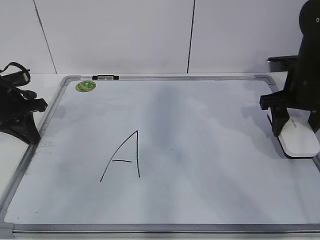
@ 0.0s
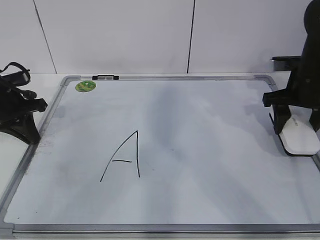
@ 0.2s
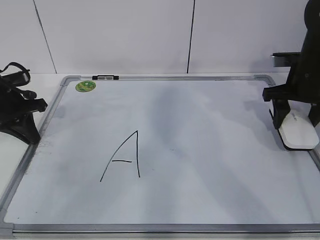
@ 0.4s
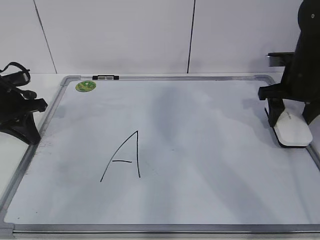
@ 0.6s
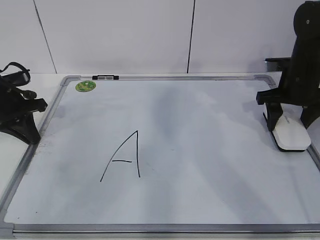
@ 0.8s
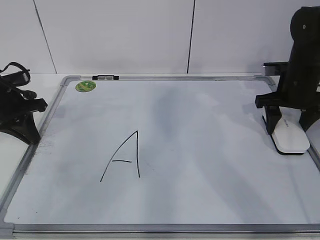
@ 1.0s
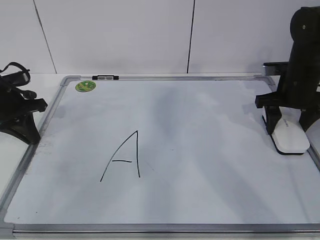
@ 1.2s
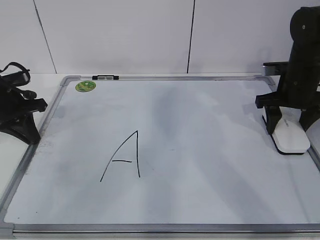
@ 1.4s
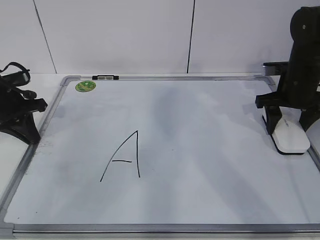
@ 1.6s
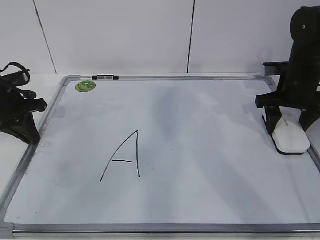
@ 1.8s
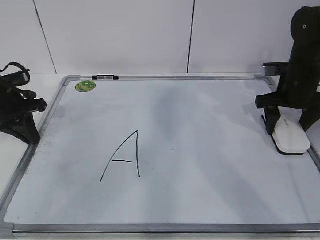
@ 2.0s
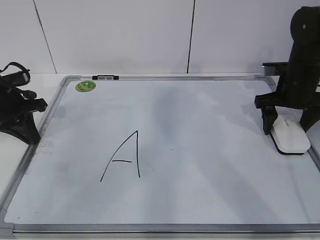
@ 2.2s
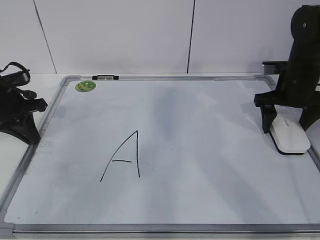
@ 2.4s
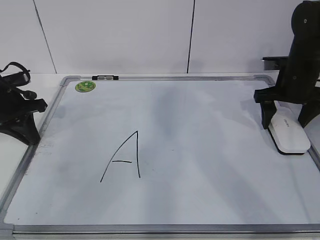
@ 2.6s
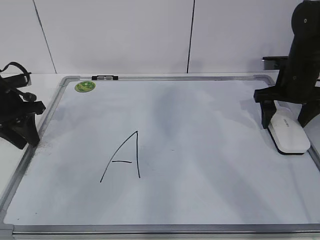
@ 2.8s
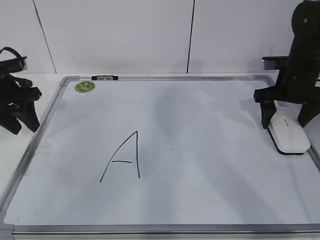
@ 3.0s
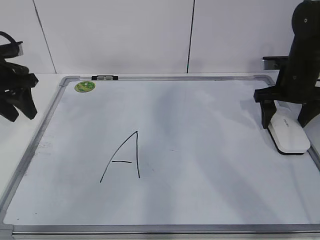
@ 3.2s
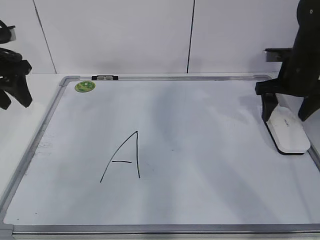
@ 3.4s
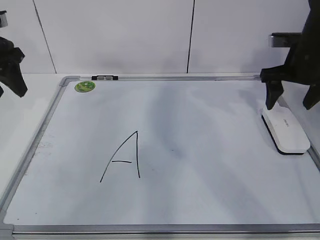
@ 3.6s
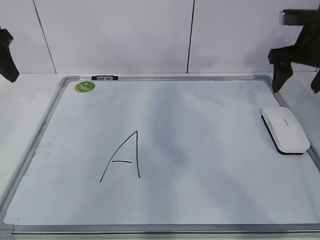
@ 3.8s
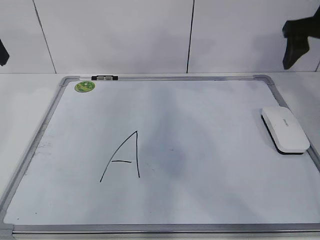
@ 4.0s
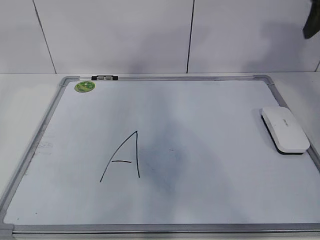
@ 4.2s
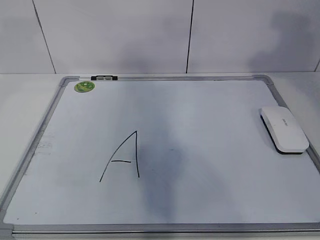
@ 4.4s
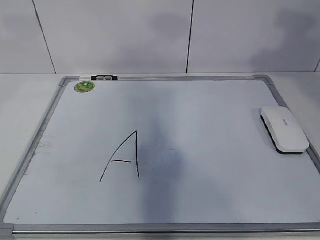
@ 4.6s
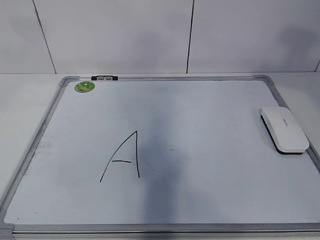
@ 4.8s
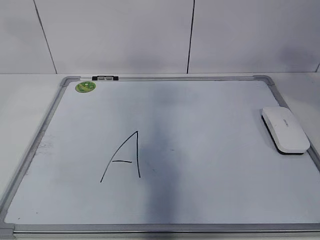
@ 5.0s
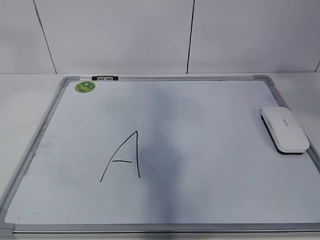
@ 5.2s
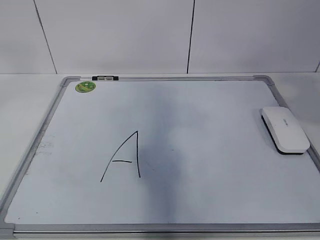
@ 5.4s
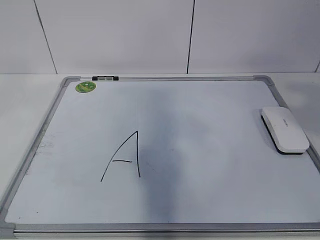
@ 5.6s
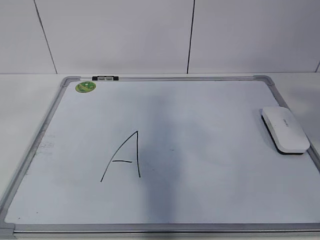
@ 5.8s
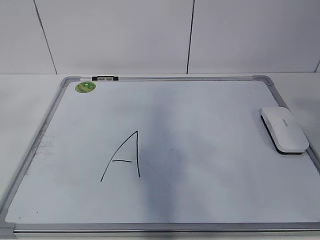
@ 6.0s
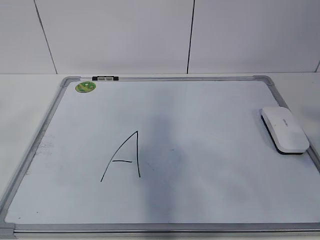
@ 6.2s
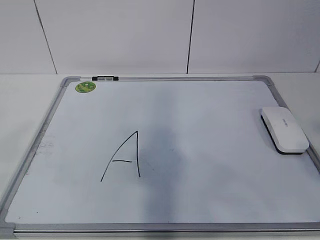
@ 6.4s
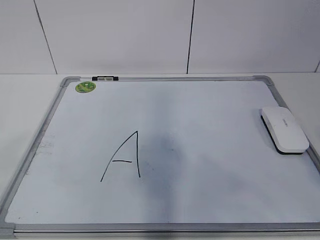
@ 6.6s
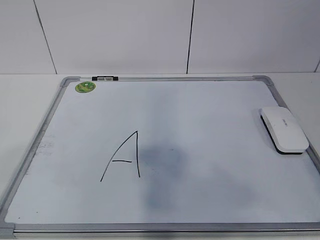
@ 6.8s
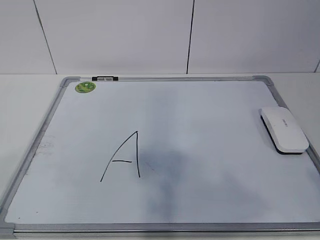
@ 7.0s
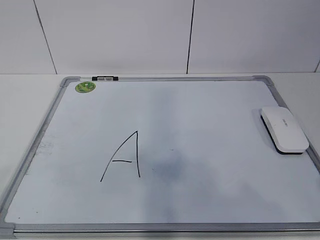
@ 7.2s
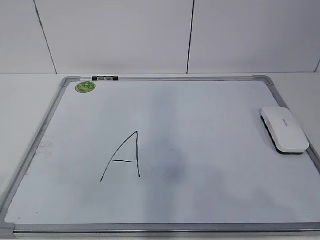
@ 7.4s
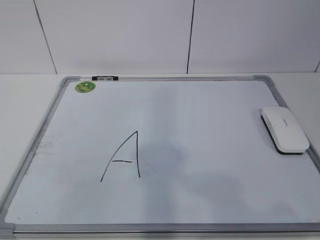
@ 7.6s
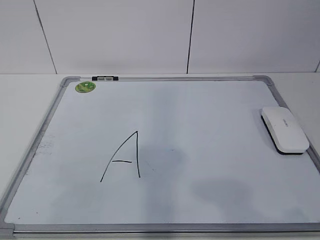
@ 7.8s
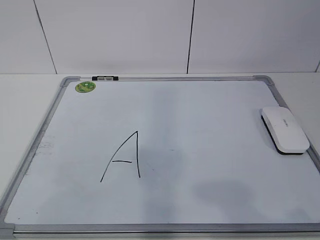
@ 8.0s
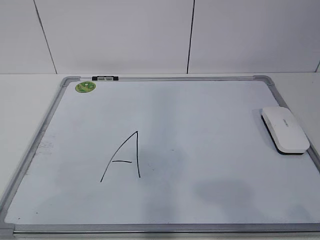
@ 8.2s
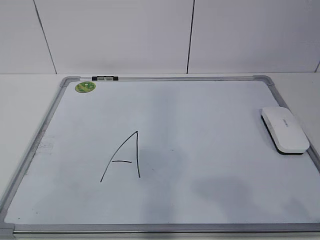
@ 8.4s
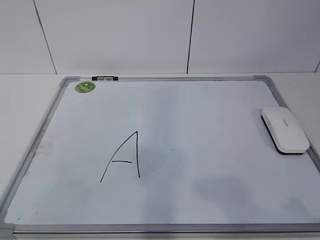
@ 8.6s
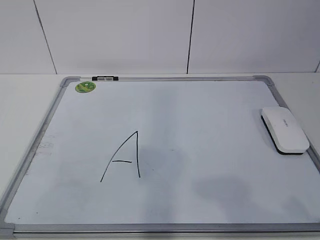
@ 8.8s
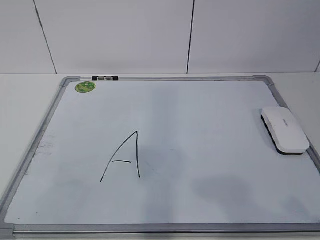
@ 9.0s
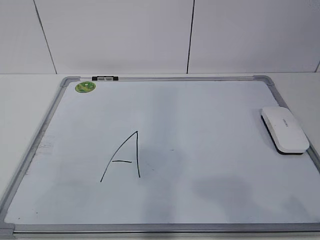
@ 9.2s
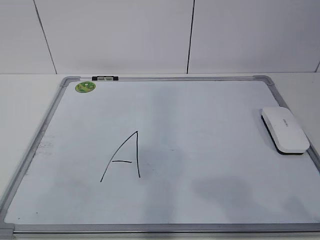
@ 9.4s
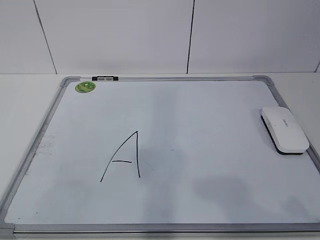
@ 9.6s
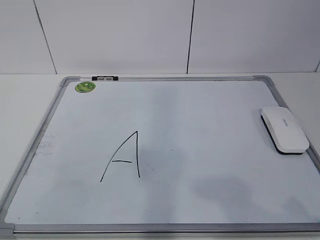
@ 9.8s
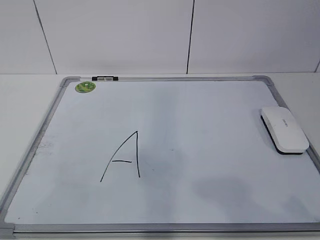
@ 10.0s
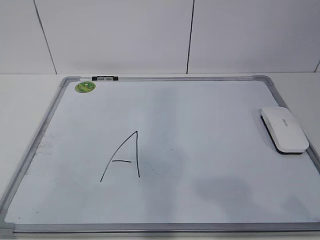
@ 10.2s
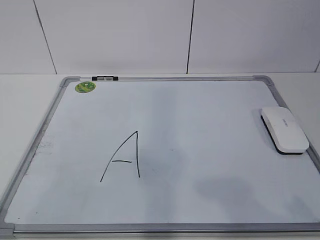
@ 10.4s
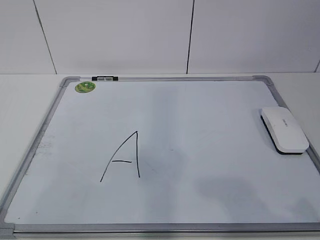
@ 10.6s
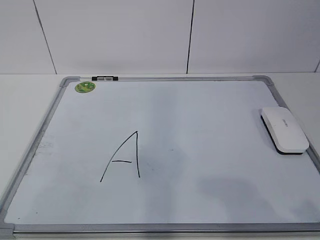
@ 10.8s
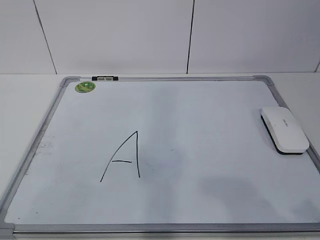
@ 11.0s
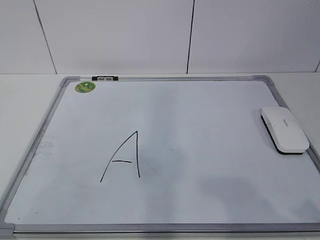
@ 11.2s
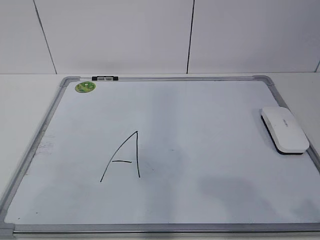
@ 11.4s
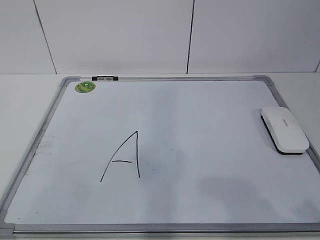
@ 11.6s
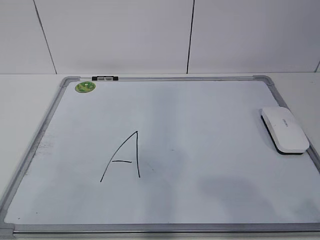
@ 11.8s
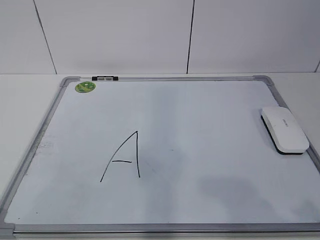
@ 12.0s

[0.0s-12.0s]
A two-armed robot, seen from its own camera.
Task of the whole recording: pick up the eraser on the blackboard and erase the letter "a".
0.0s to 1.6s: The grippers stay close to where they were, moving slightly.
1.6s to 3.0s: The left gripper opens. The right gripper opens up.
3.0s to 4.4s: The grippers both shift upward and backward by roughly 25 cm. The left gripper opens its fingers.
4.4s to 6.0s: Both grippers move backward, roughly 30 cm. The right gripper closes its fingers.
6.0s to 7.6s: The left gripper heads downward, covering roughly 20 cm; the right gripper moves downward and backward, some 15 cm.

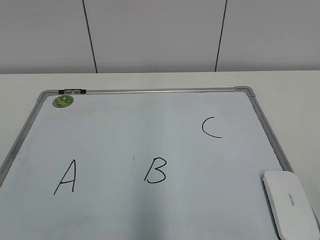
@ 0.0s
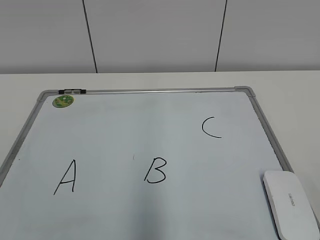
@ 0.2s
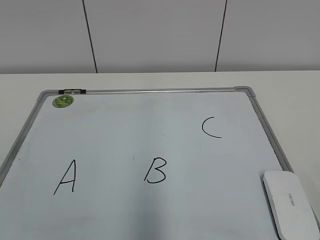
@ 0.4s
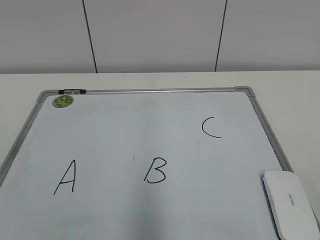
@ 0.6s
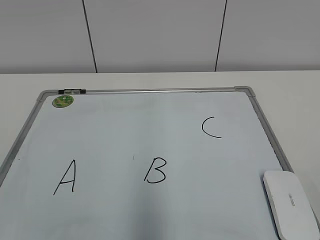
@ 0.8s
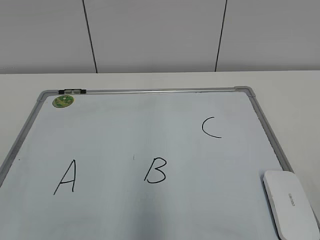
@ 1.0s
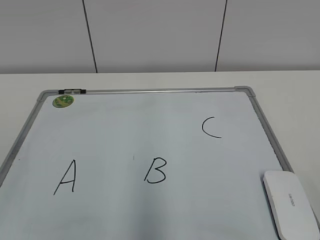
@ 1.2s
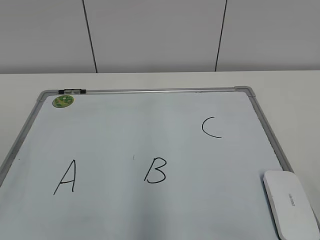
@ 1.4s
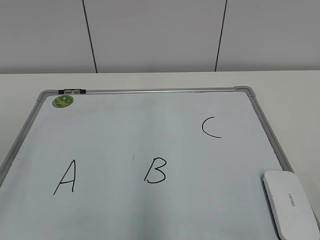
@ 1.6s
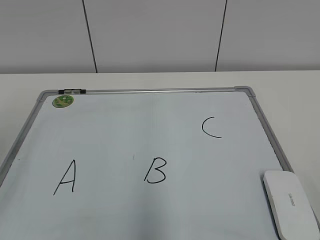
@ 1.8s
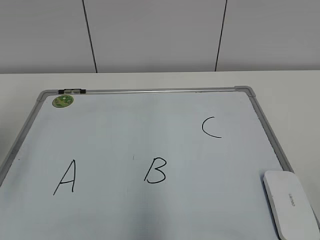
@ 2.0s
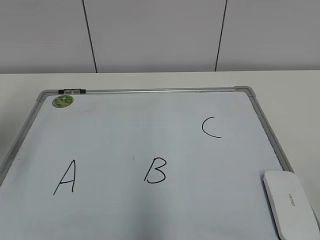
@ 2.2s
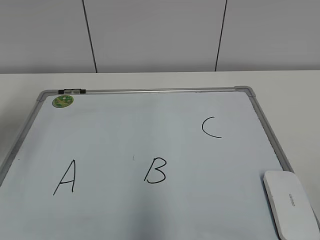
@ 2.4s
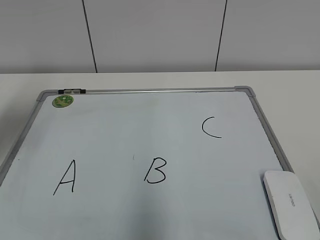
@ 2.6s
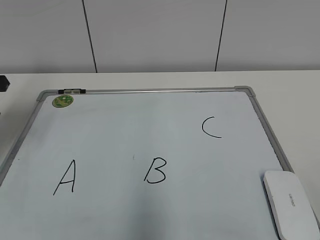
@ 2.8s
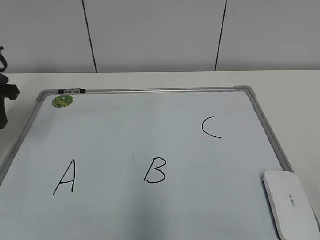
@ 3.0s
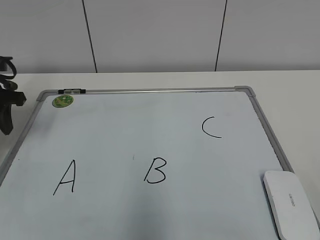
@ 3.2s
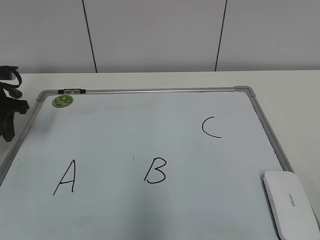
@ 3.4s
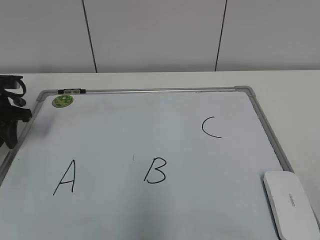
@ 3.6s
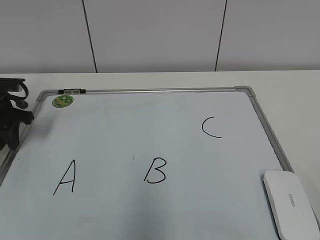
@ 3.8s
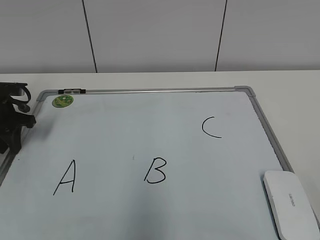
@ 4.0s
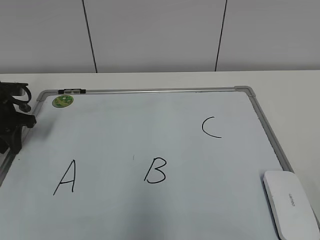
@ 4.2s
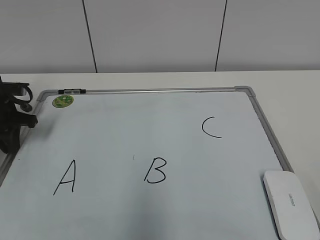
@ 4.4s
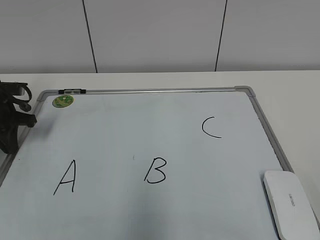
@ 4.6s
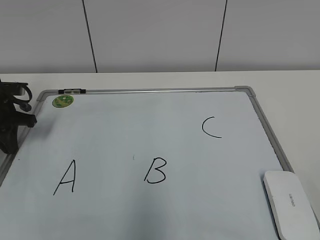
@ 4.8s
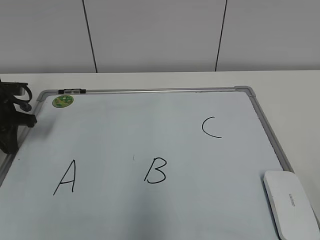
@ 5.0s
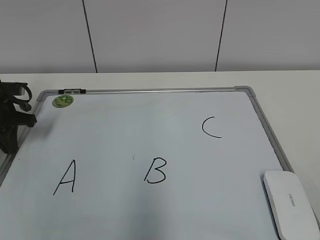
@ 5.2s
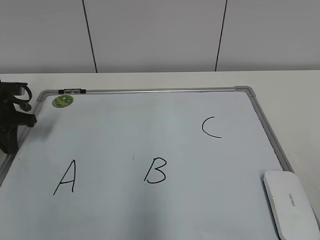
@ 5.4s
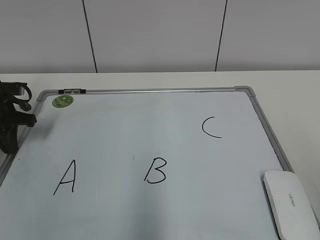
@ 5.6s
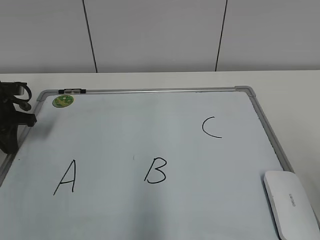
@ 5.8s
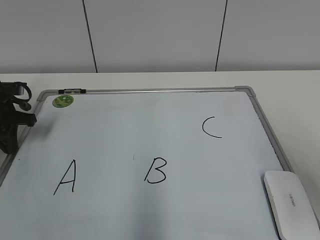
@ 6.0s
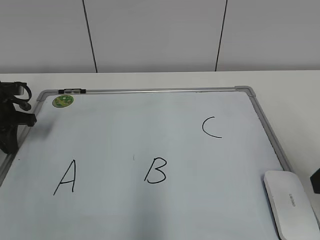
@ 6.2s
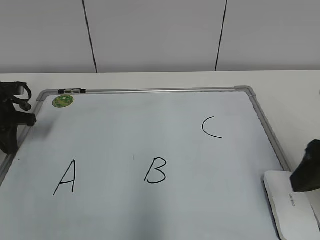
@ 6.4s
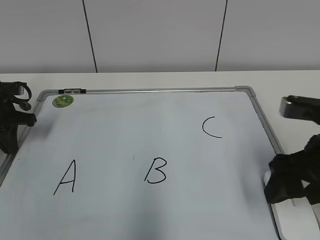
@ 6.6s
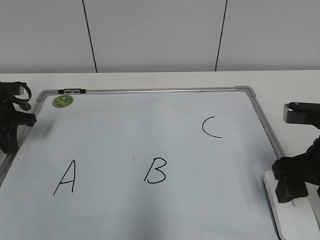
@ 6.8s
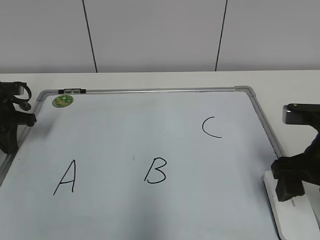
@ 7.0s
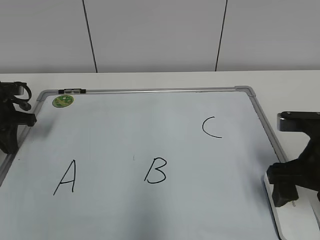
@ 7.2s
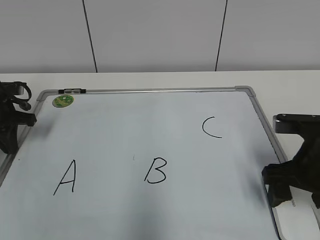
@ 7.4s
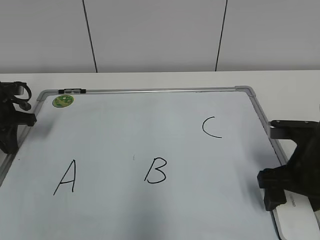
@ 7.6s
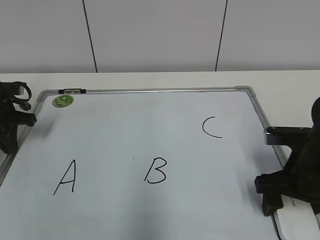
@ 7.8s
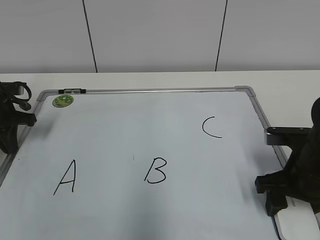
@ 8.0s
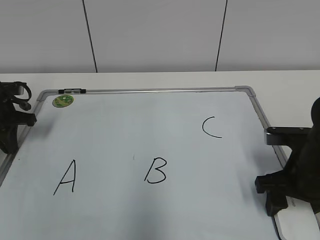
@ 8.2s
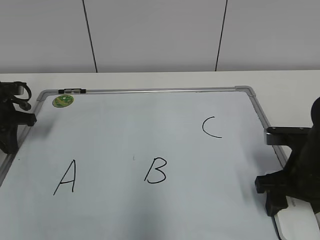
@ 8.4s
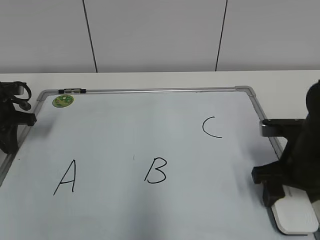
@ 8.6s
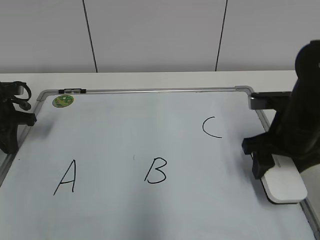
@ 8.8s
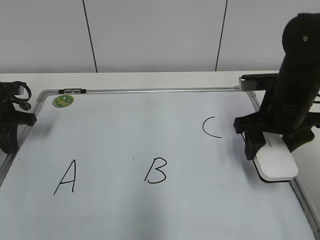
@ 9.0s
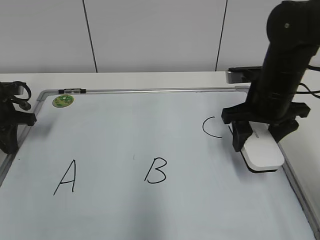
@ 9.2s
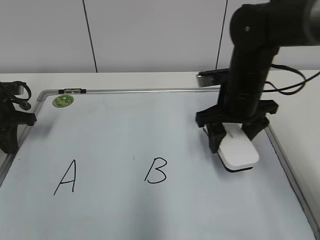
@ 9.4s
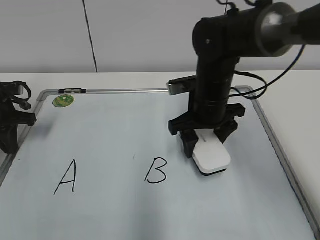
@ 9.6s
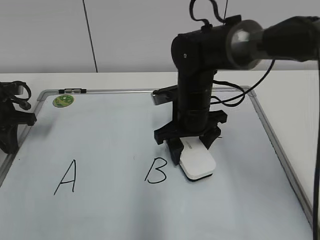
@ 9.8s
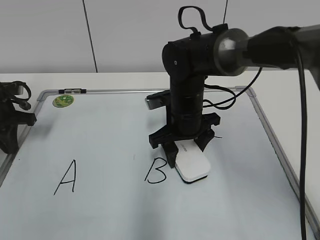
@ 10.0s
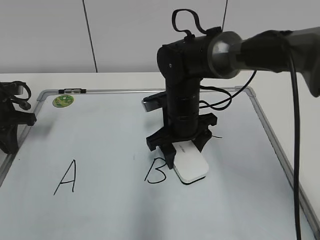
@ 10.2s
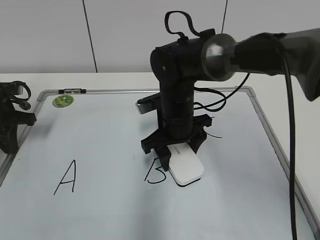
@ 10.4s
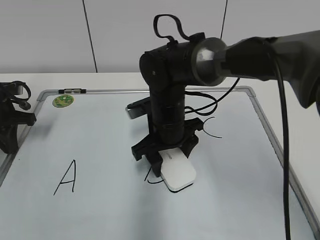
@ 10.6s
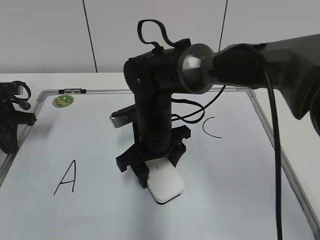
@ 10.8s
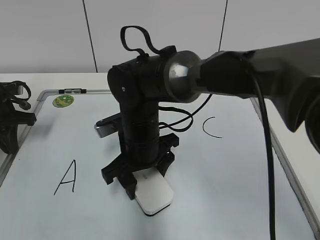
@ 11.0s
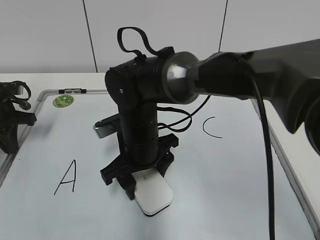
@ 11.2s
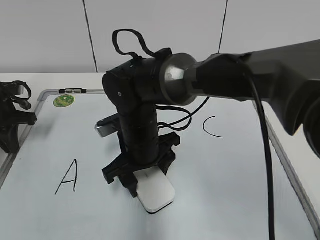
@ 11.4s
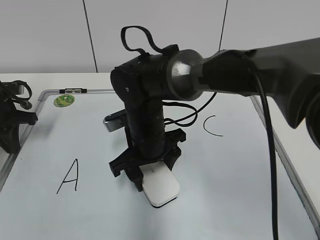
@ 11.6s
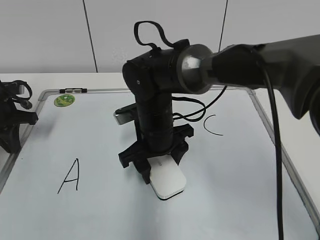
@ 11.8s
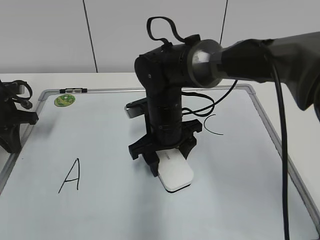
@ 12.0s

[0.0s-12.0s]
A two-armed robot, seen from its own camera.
Task of the whole recording: pick up the eraser on the blackboard and erase the letter "B".
Step, 0.0s to 5.0s: Hold the drawing board steady with your left hand.
Step, 5.2s to 8.2s: Grab the eraser with your right hand.
1.6s to 3.0s: The left gripper goes roughly 25 cm forward.
3.0s to 4.4s: The left gripper moves downward, about 10 cm.
4.4s to 6.0s: The right gripper is displaced forward by roughly 15 cm.
6.0s to 7.6s: The right gripper heads downward and forward, covering approximately 20 cm, and opens its fingers.
7.6s to 9.0s: The right gripper travels forward and upward by about 10 cm, and closes up.
9.0s to 10.4s: The right gripper travels to the left by some 15 cm.
